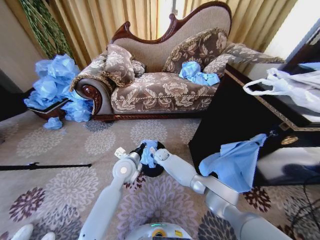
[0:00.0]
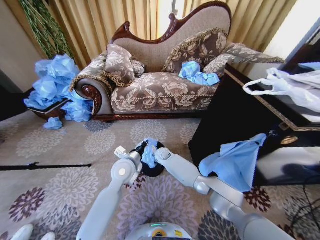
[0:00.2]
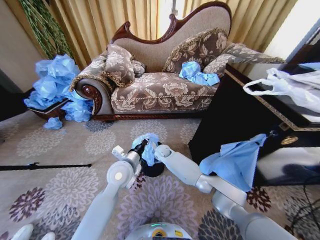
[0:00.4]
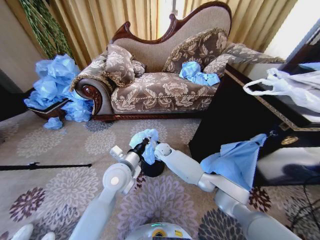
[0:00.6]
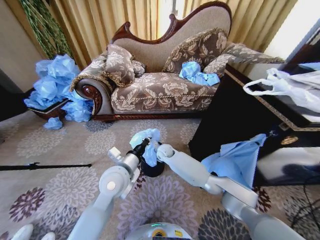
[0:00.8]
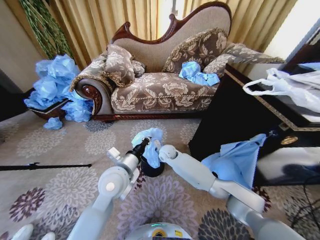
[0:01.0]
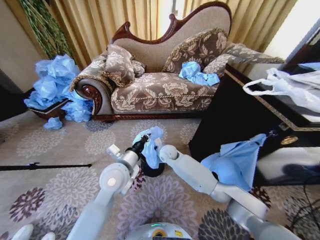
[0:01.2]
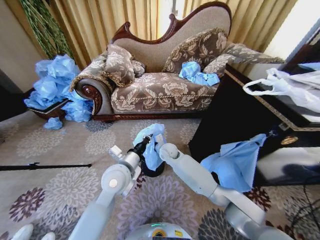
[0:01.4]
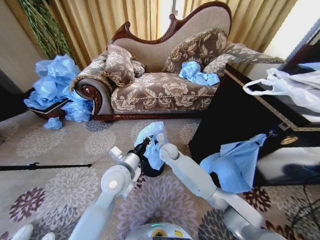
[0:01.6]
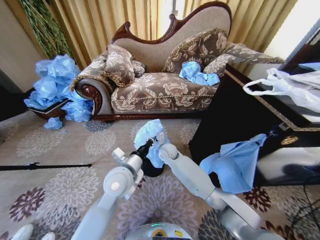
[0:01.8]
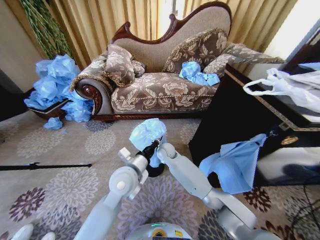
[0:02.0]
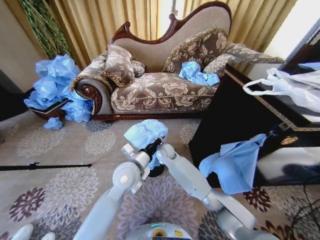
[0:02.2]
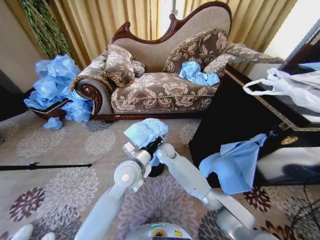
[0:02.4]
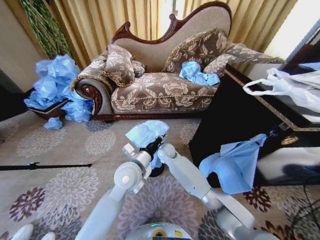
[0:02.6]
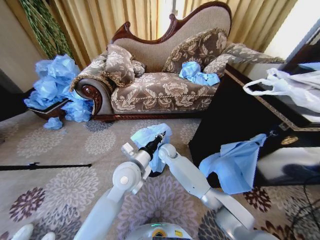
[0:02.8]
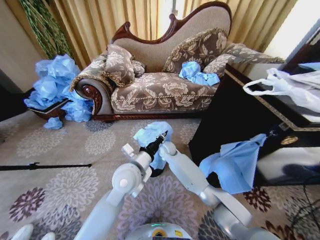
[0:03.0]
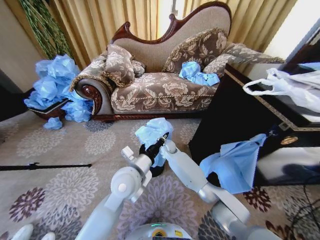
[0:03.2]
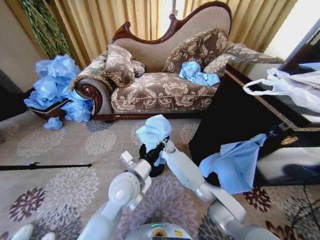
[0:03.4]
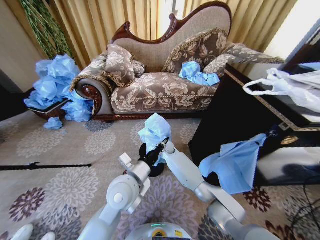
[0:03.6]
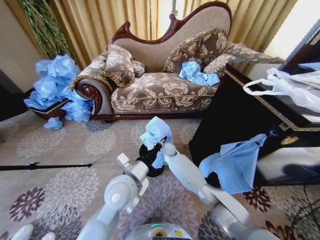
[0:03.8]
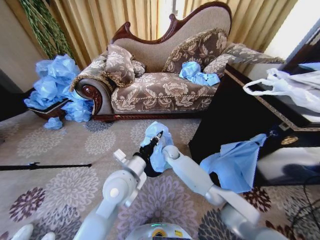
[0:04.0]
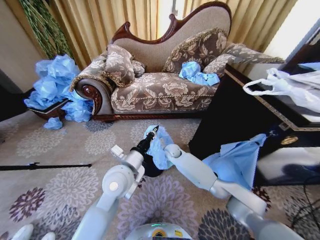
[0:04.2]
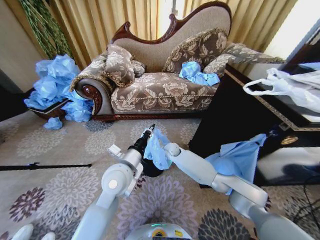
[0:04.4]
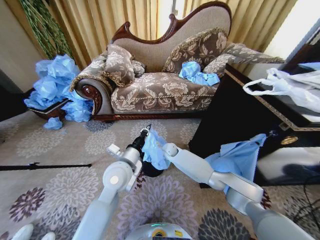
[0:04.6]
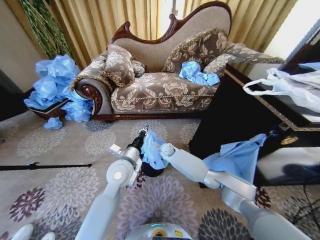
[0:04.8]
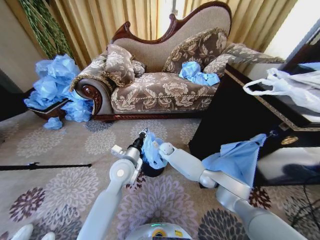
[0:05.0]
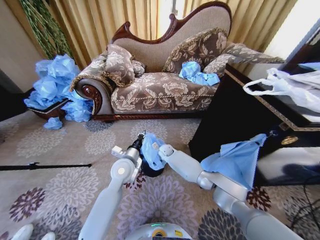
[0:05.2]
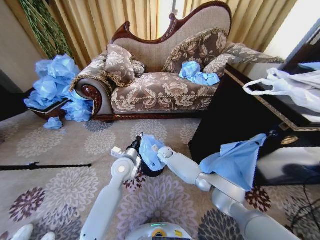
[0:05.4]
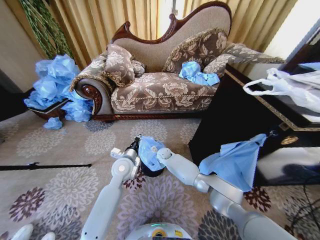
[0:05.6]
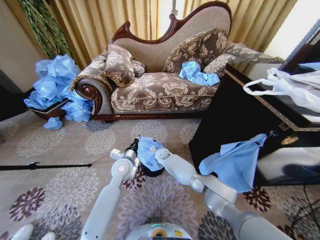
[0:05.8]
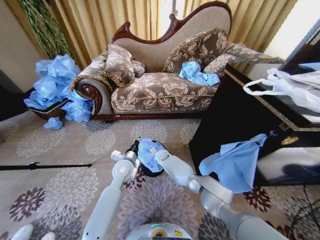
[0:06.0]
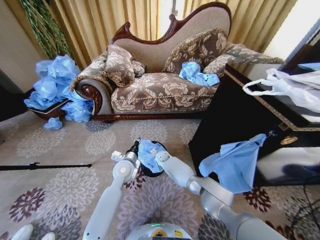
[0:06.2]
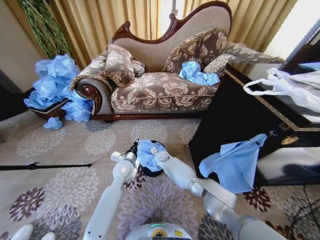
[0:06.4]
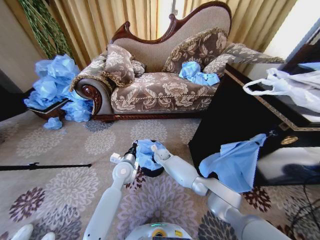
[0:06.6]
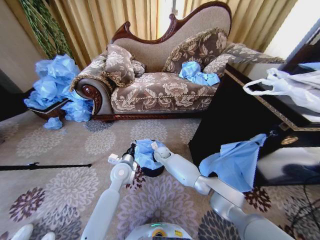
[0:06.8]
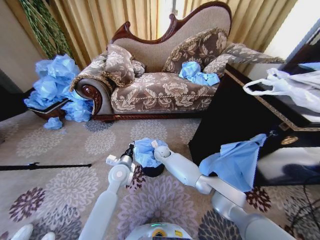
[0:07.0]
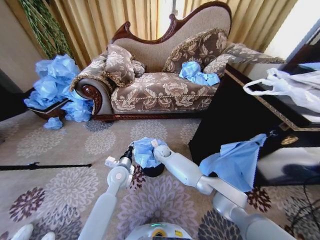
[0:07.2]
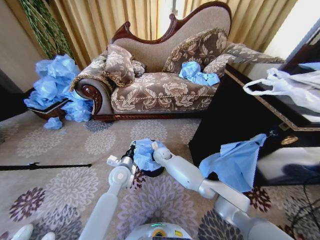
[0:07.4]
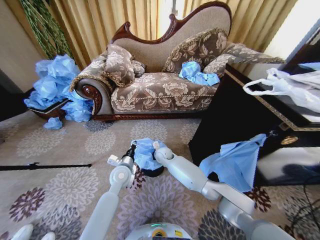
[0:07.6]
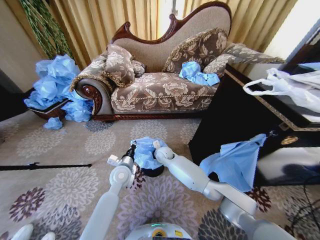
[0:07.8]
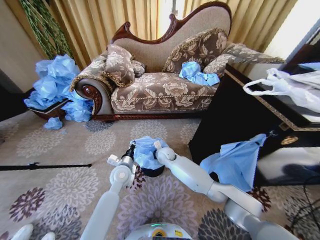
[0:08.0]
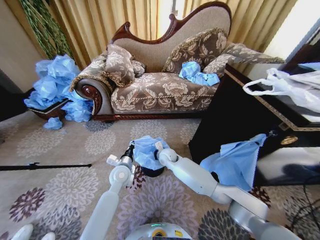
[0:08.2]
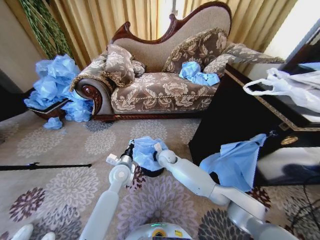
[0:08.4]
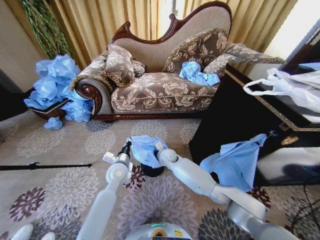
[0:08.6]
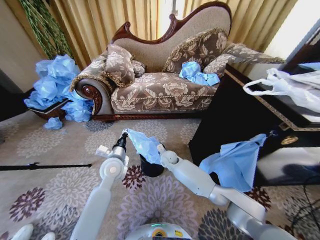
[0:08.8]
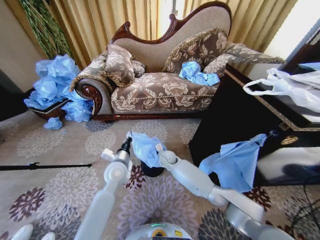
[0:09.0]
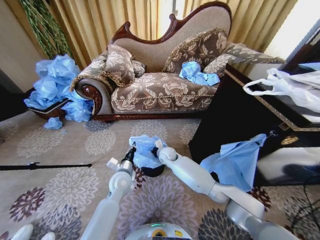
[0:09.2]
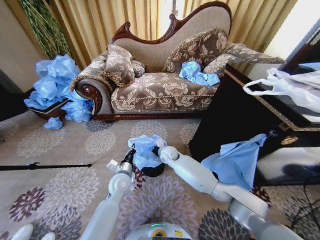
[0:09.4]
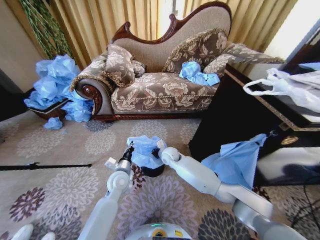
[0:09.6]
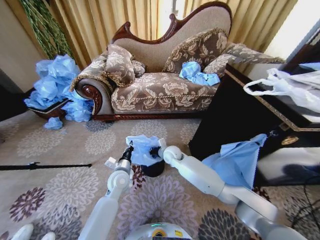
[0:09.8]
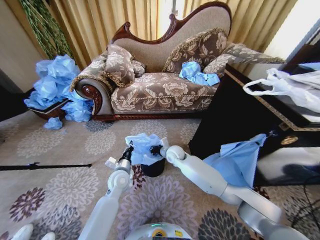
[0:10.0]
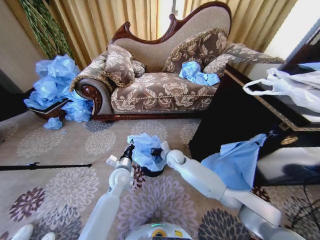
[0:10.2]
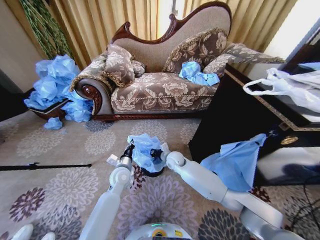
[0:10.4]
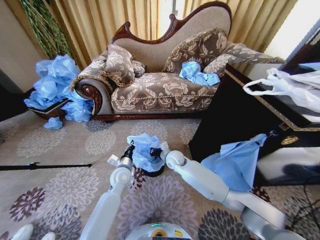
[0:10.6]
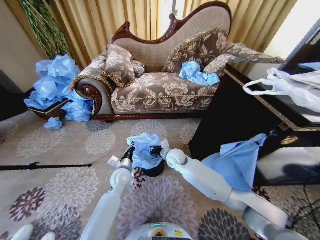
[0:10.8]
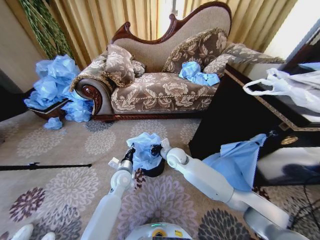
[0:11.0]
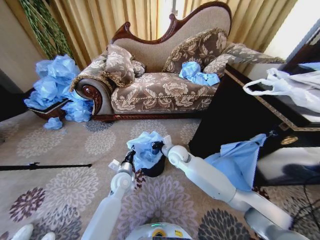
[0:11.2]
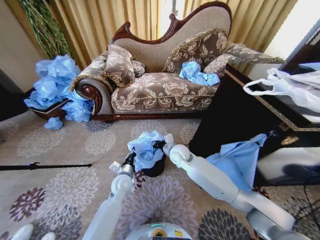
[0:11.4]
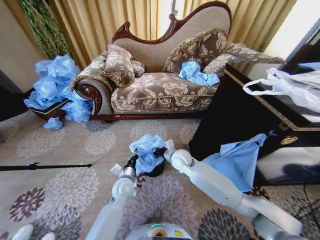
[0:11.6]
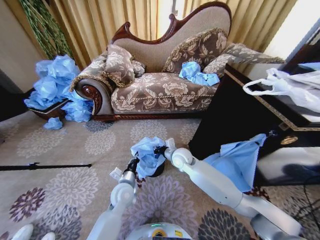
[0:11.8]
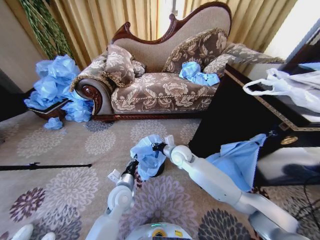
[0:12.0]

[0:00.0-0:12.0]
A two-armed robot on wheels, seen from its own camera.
Task of the whole recording: Place a garbage bag over the trash bin.
0:00.0 to 0:01.6: The right gripper heads upward and backward, covering some 15 cm, while the left gripper moves backward and upward, some 10 cm.
0:04.4 to 0:06.0: The left gripper goes approximately 15 cm downward and forward, while the right gripper shifts roughly 10 cm downward and to the left.
0:06.0 to 0:07.6: The right gripper moves upward, about 10 cm.
0:07.6 to 0:09.0: The grippers move only a little.
0:09.0 to 0:10.4: The left gripper goes some 5 cm downward.
0:10.4 to 0:12.0: The right gripper travels upward by roughly 10 cm, while the left gripper is displaced backward by roughly 10 cm.

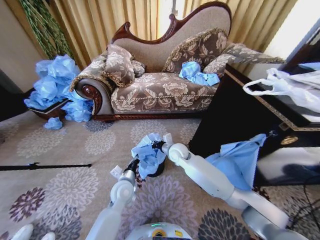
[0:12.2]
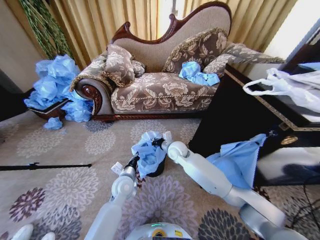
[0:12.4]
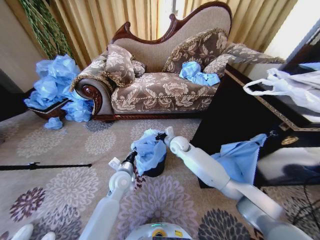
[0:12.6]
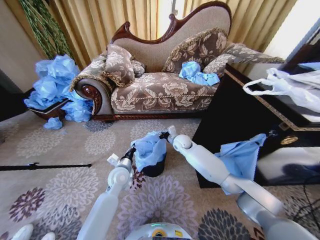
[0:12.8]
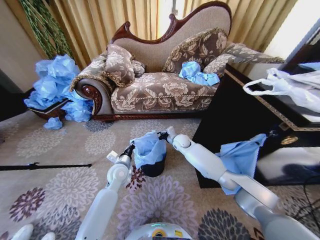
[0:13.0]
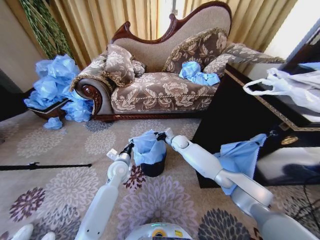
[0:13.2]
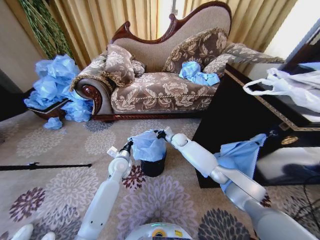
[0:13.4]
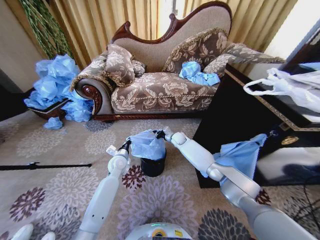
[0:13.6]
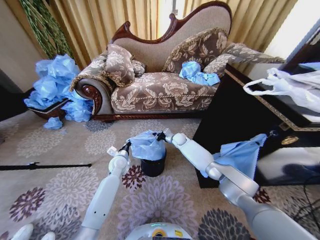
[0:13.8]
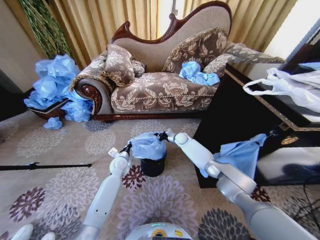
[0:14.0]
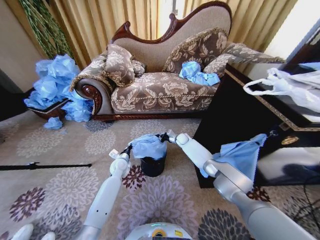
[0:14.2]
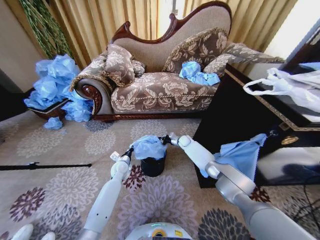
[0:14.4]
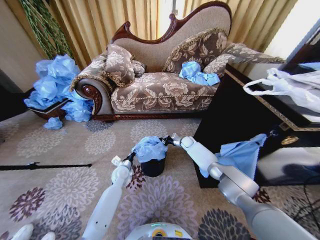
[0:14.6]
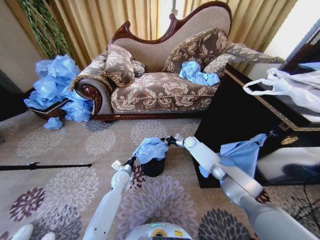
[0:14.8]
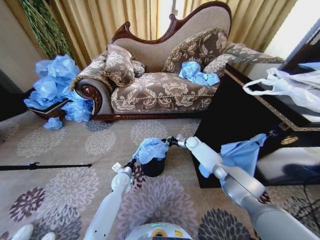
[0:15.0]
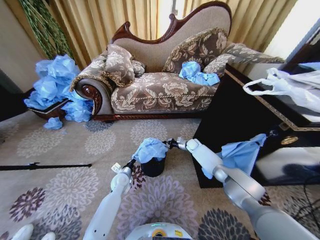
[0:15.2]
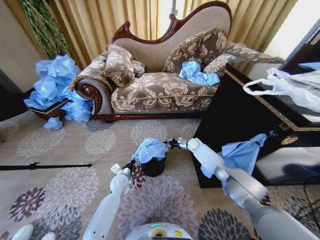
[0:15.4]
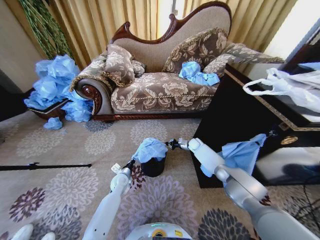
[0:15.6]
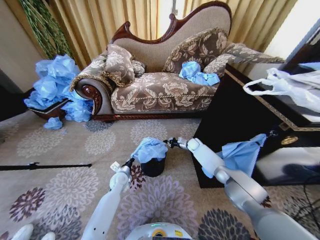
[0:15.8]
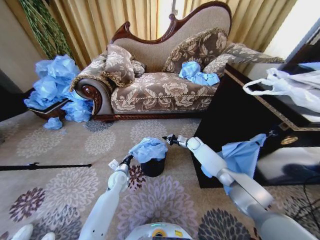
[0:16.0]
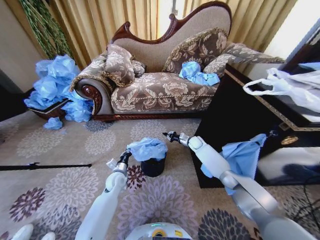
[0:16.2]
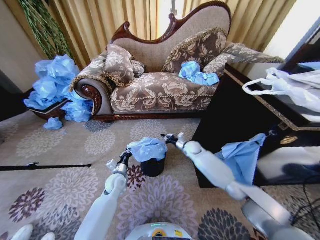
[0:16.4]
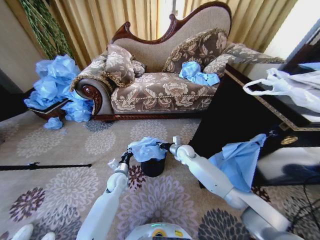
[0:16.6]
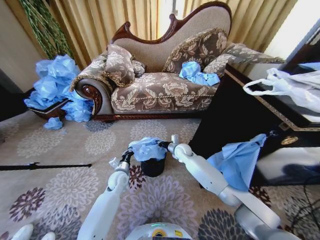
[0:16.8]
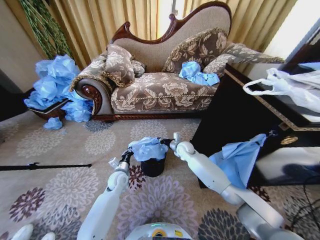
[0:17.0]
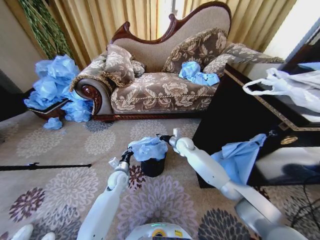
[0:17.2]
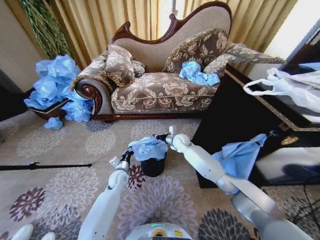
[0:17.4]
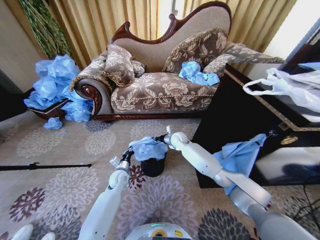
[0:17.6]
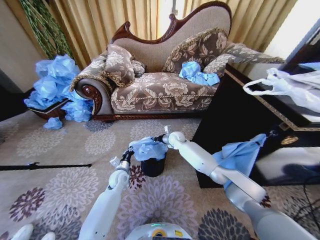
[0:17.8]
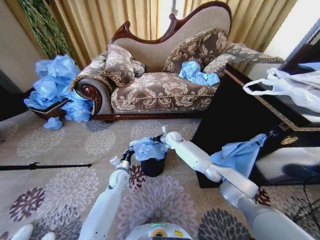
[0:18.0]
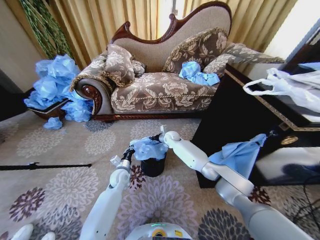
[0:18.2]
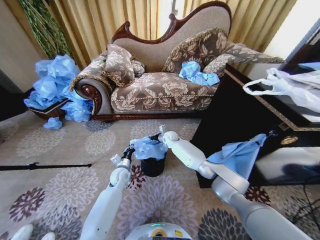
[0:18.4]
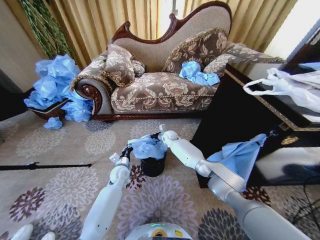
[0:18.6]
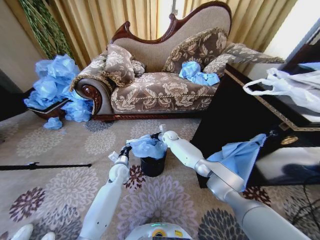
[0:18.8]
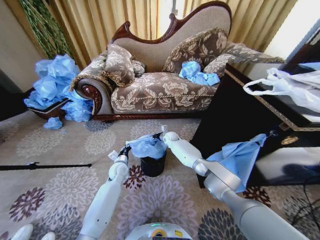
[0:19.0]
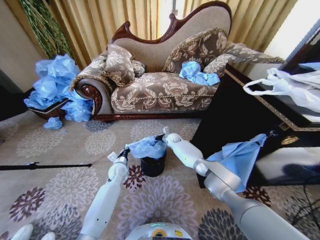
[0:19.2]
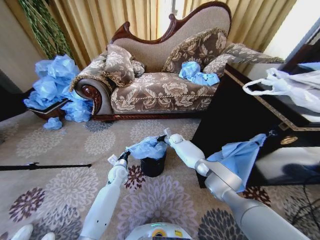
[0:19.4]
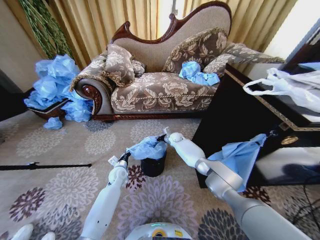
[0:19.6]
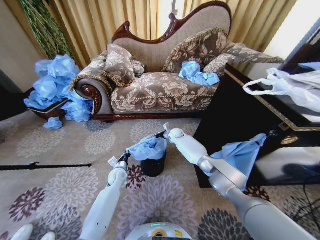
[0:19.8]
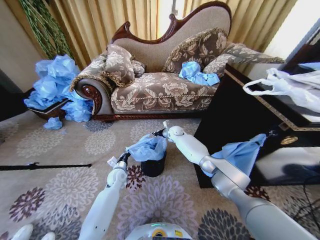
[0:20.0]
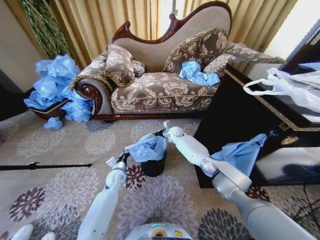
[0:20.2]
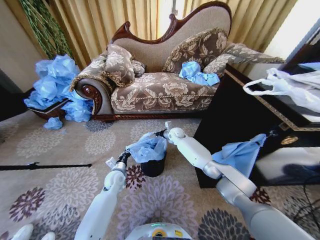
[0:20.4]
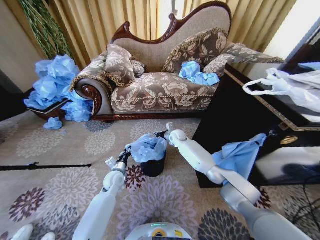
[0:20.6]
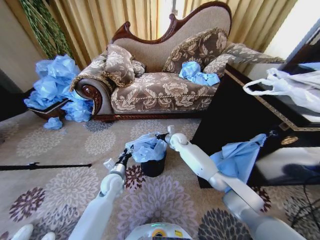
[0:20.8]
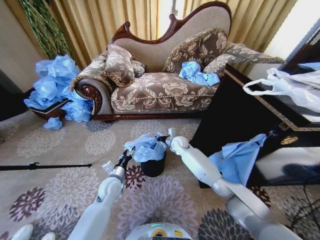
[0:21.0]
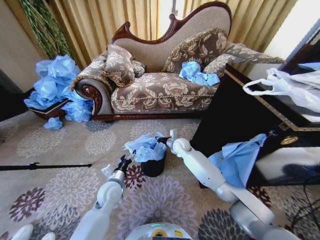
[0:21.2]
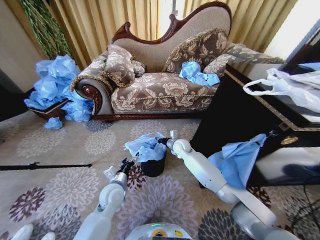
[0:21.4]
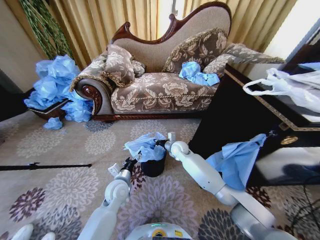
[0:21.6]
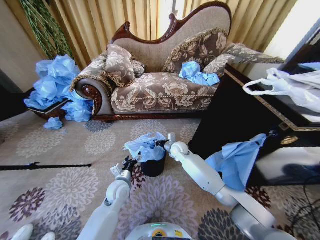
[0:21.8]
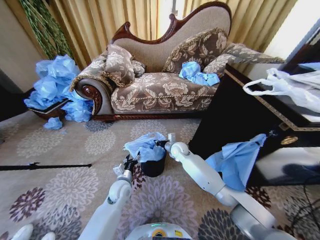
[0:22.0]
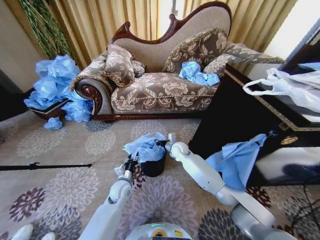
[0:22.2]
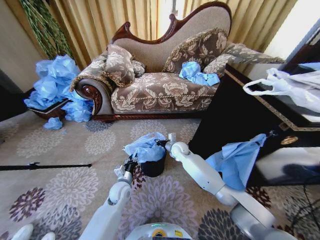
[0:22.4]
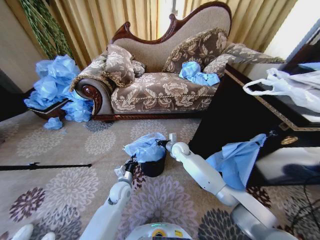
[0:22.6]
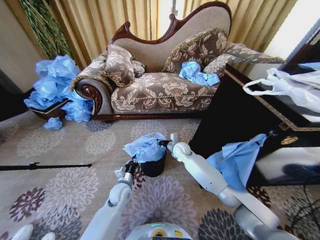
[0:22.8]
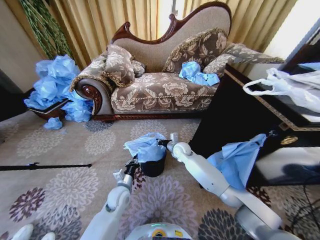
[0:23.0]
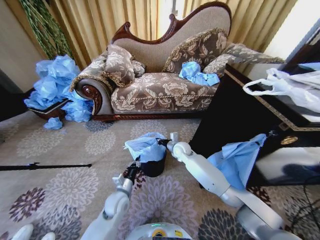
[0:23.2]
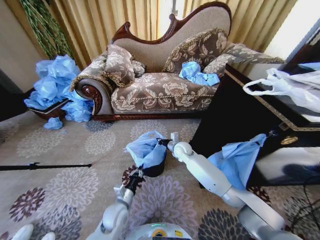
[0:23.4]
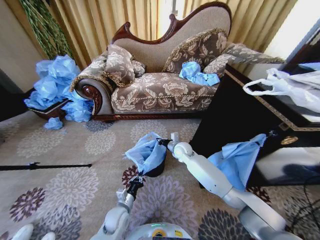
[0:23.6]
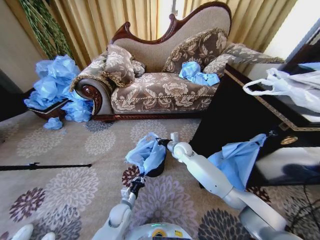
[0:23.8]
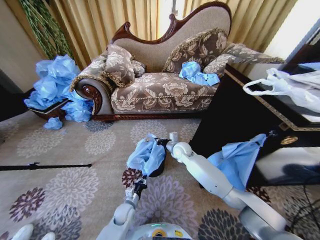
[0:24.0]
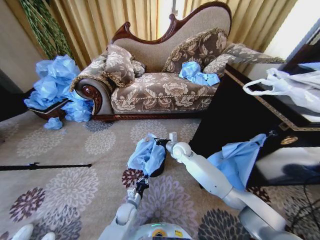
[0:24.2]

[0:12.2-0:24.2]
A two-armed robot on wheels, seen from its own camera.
Task of the whole recording: Place a garbage bag over the trash bin.
0:12.2 to 0:13.8: The left gripper is displaced forward and to the left by some 15 cm, while the right gripper is displaced forward and downward by some 15 cm.
0:13.8 to 0:15.2: The right gripper moves to the right and downward, approximately 10 cm; the left gripper moves downward and backward, roughly 10 cm.
0:15.2 to 0:16.6: The right gripper goes some 15 cm backward, to the left and upward.
0:16.6 to 0:18.2: The right gripper is displaced forward and to the left by about 10 cm.
0:18.2 to 0:19.8: The right gripper changes place by about 5 cm.
0:19.8 to 0:21.2: The left gripper travels backward and upward by roughly 15 cm, and opens up. The right gripper moves backward, about 10 cm.
0:21.2 to 0:22.6: The left gripper shifts about 5 cm downward, and closes up.
0:22.6 to 0:24.2: The left gripper shifts some 15 cm downward and backward.
